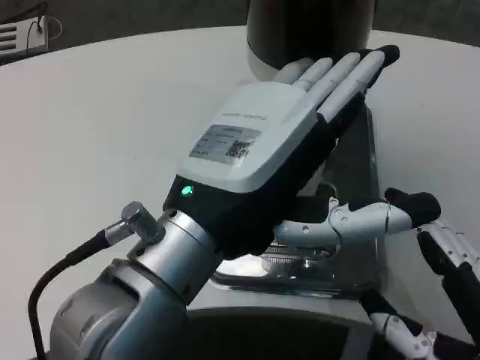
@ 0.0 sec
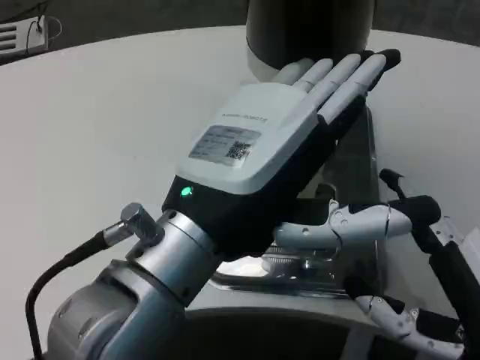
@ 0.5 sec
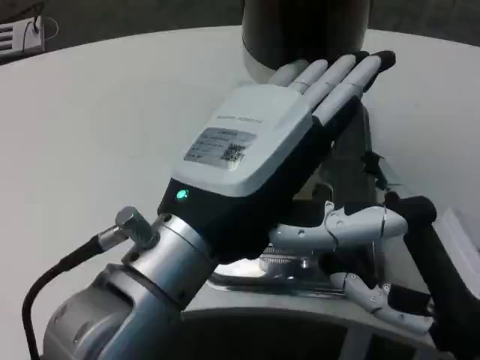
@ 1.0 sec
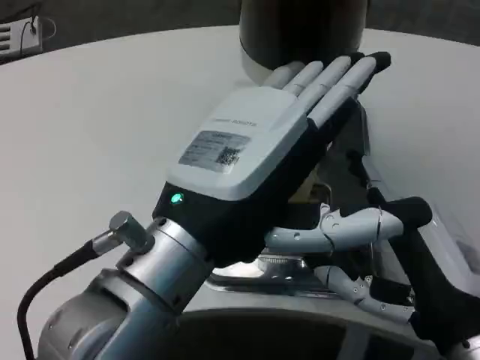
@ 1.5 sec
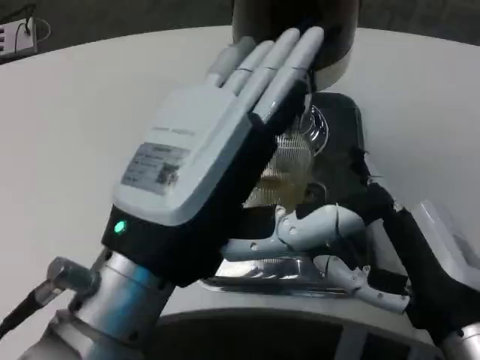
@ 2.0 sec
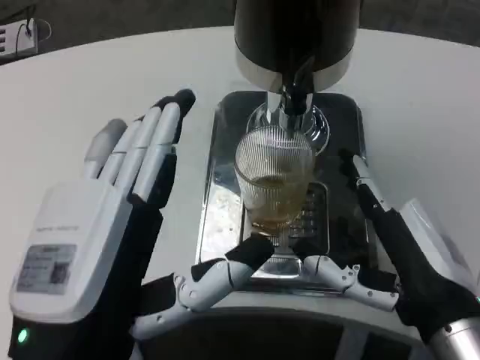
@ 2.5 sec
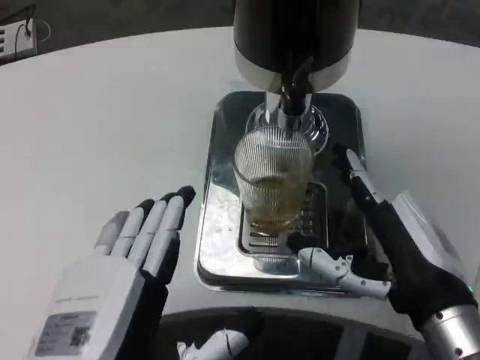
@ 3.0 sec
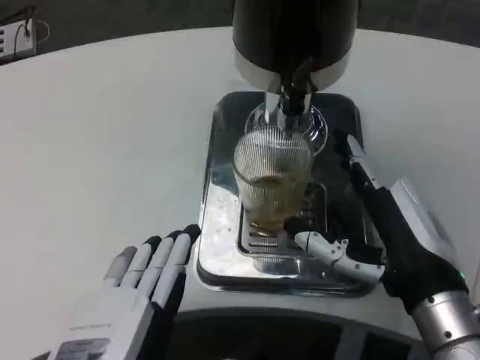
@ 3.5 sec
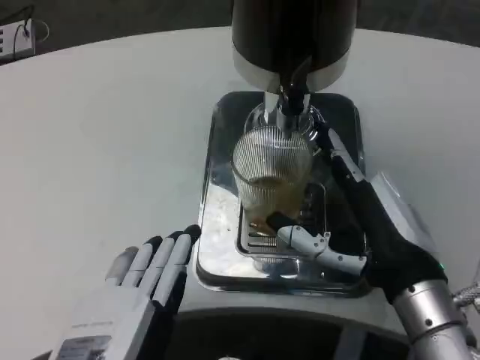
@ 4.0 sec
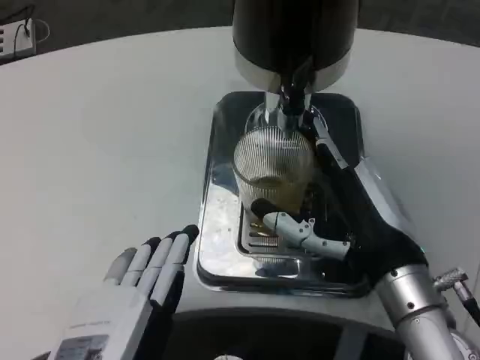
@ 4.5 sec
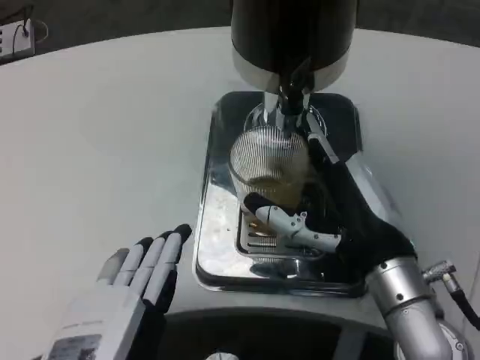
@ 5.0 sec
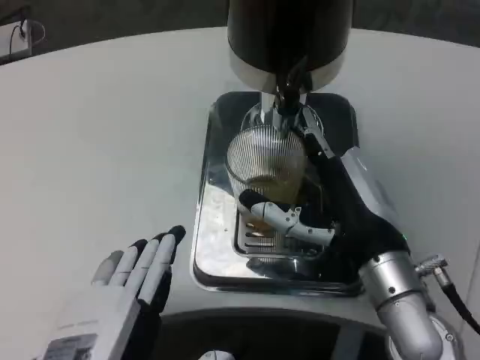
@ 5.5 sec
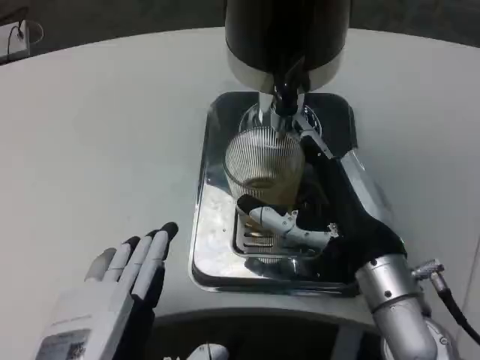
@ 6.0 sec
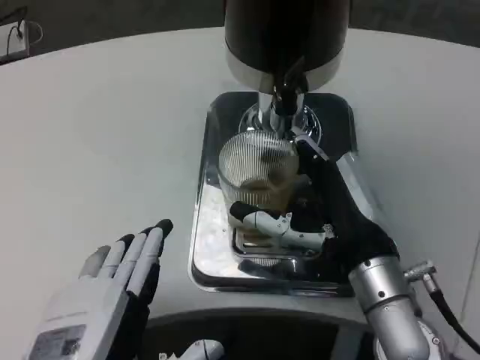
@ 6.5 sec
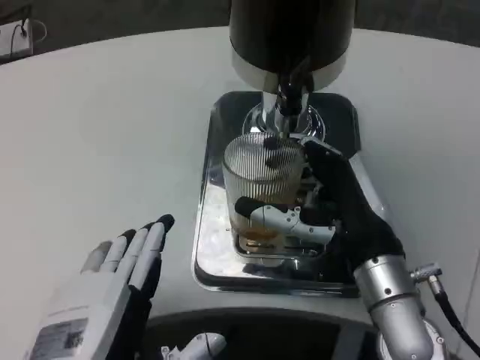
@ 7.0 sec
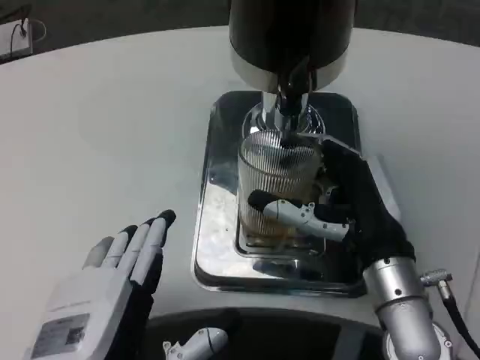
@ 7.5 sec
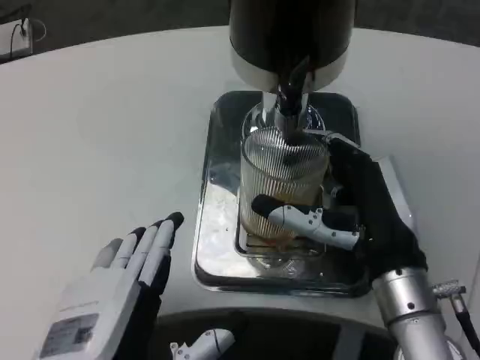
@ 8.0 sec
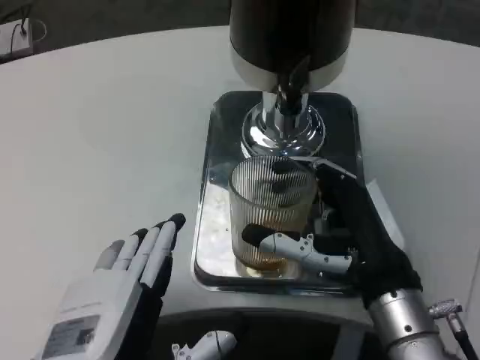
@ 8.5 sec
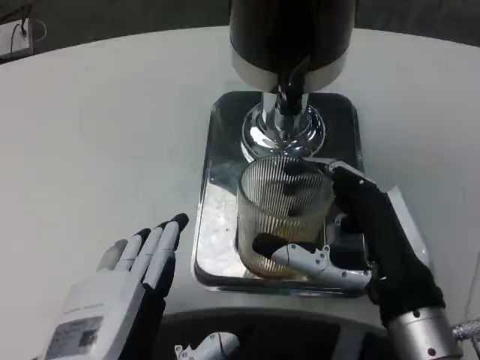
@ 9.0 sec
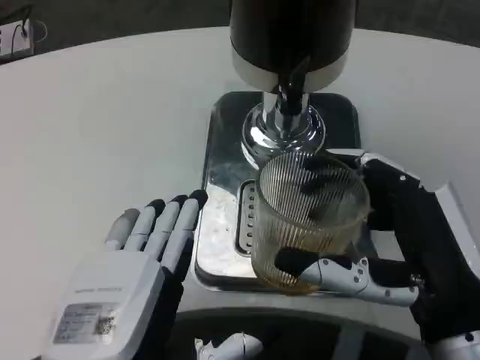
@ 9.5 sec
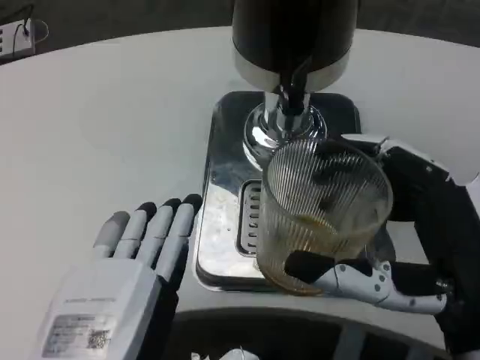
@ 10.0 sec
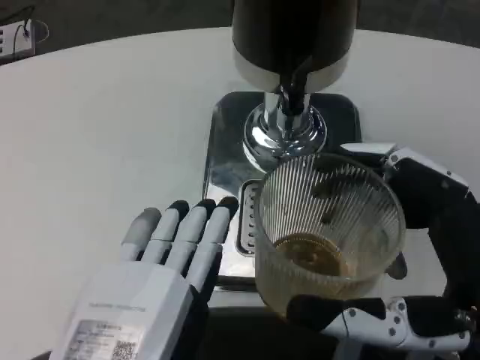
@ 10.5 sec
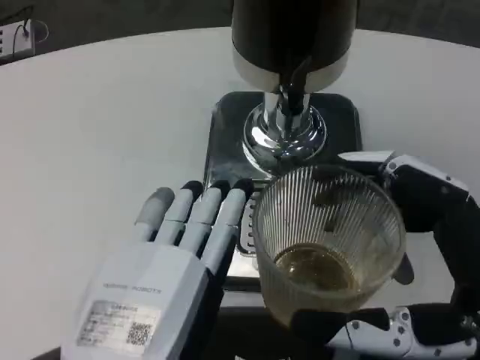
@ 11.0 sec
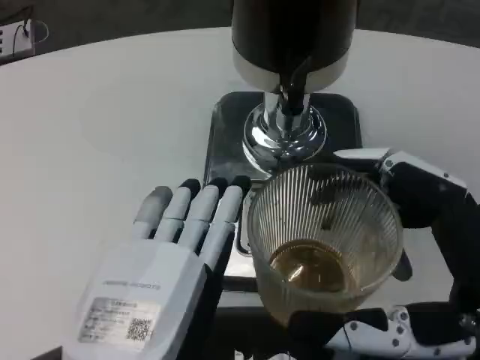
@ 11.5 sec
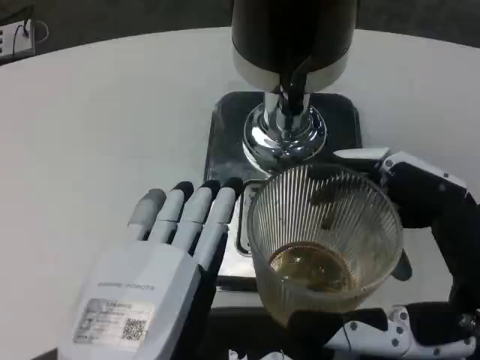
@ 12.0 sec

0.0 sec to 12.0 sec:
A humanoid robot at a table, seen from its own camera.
Task of the whole recording: Grasp the cup under the faucet to collect the drink, then remove the cup.
0.0 sec to 2.0 sec: The right hand heads forward, covering some 5 cm.
2.0 sec to 4.0 sec: The right hand shifts by about 5 cm. Meanwhile the left hand heads downward, covering some 10 cm.
8.0 sec to 10.0 sec: The right hand travels backward by some 10 cm.

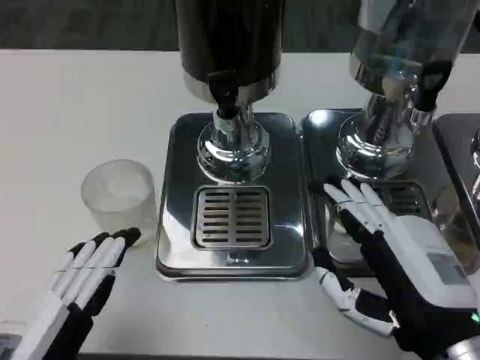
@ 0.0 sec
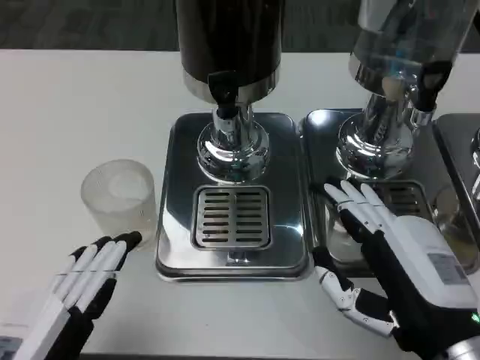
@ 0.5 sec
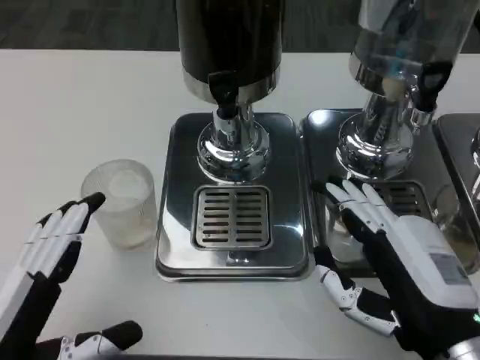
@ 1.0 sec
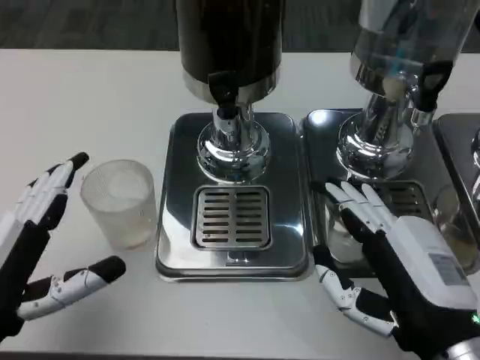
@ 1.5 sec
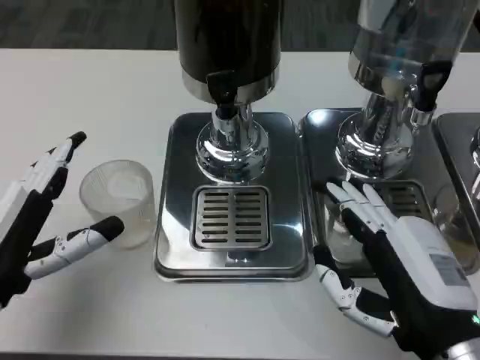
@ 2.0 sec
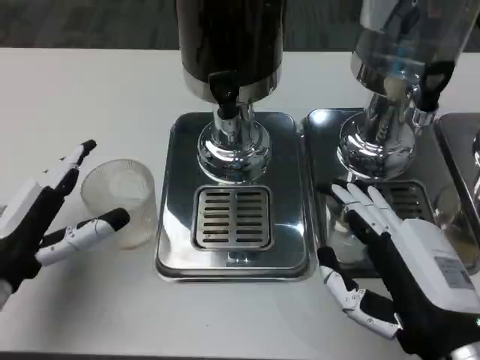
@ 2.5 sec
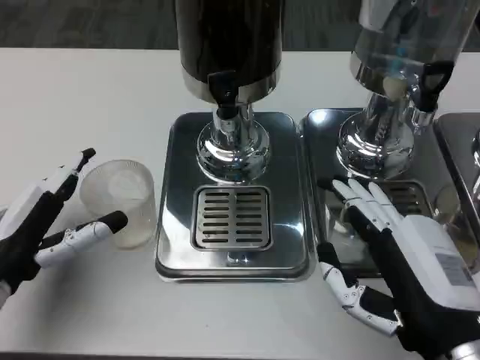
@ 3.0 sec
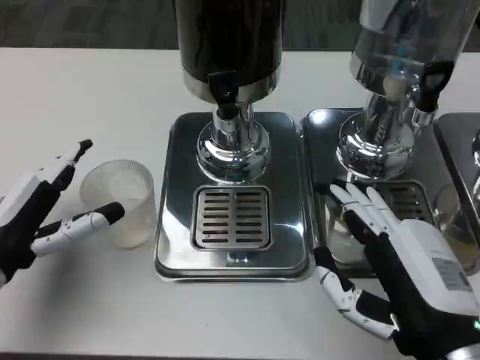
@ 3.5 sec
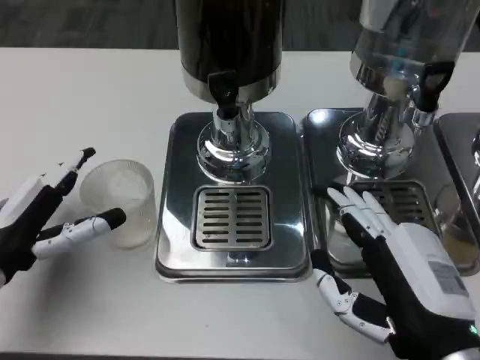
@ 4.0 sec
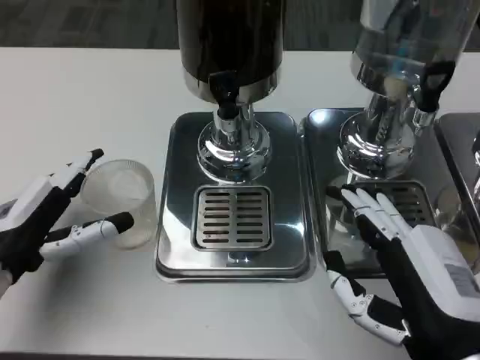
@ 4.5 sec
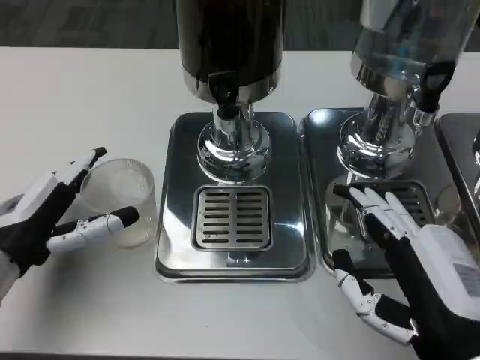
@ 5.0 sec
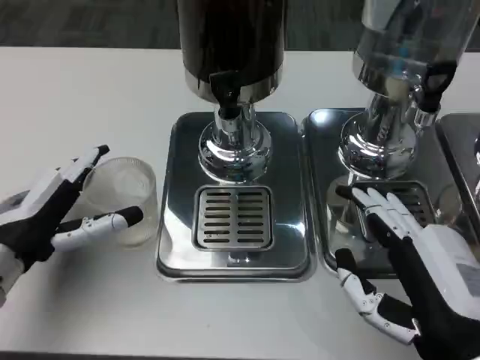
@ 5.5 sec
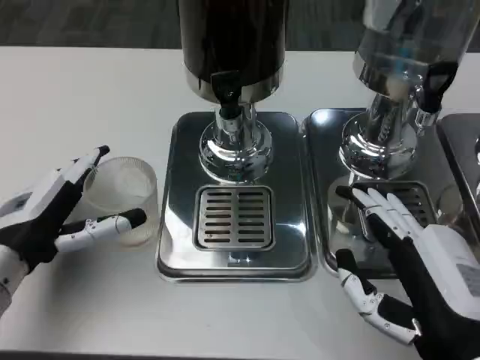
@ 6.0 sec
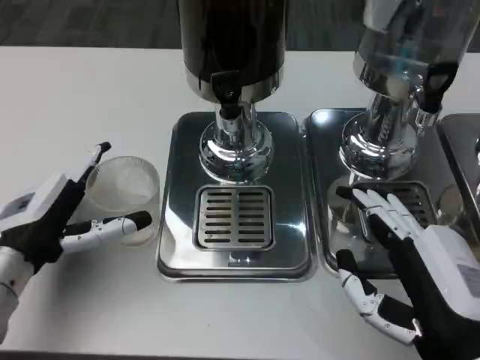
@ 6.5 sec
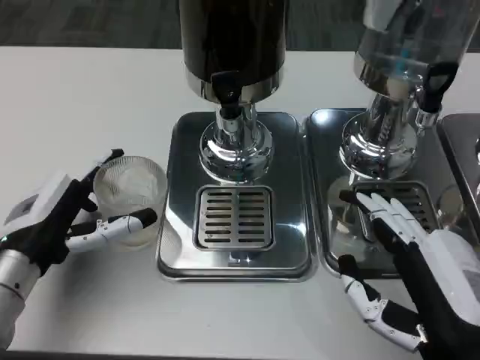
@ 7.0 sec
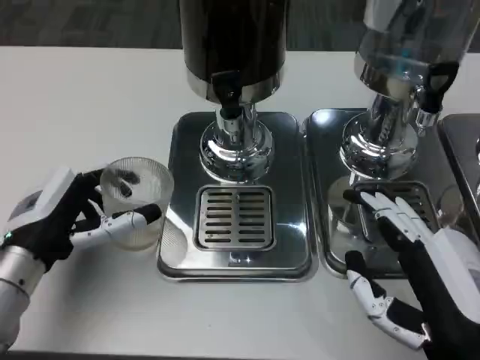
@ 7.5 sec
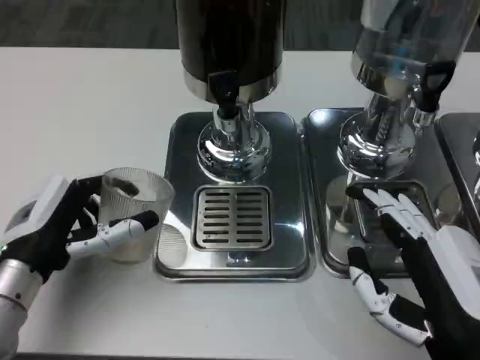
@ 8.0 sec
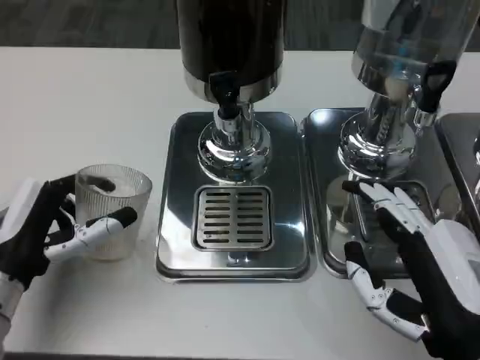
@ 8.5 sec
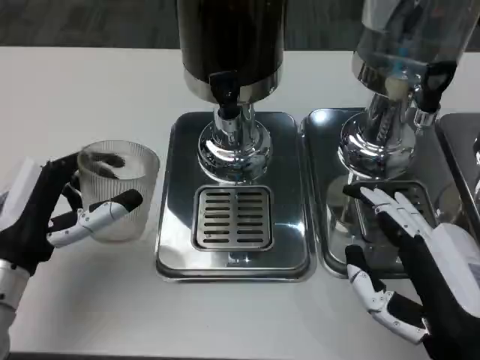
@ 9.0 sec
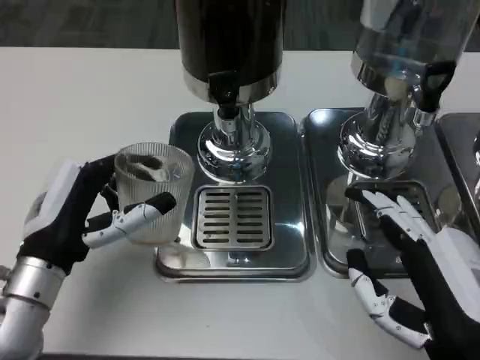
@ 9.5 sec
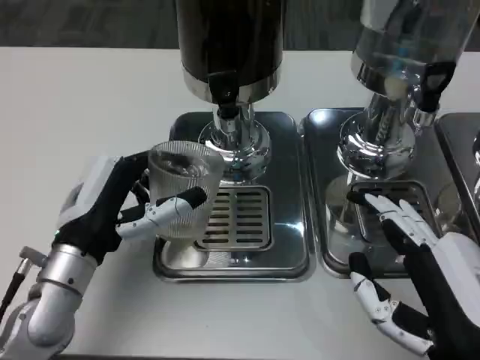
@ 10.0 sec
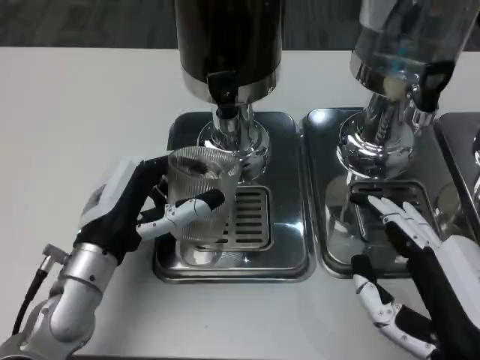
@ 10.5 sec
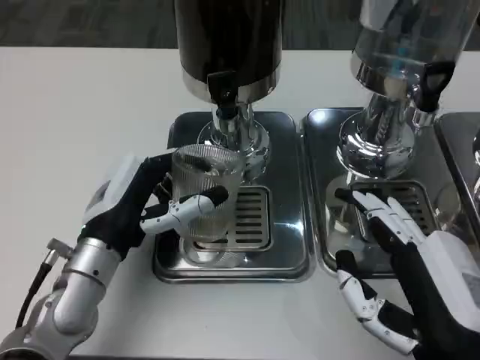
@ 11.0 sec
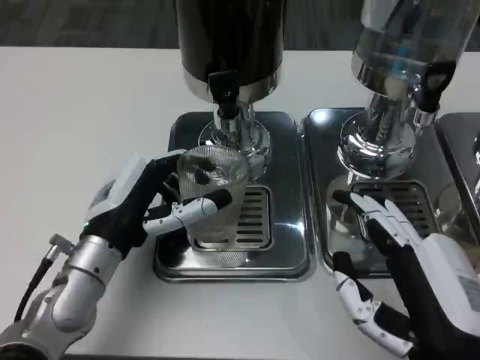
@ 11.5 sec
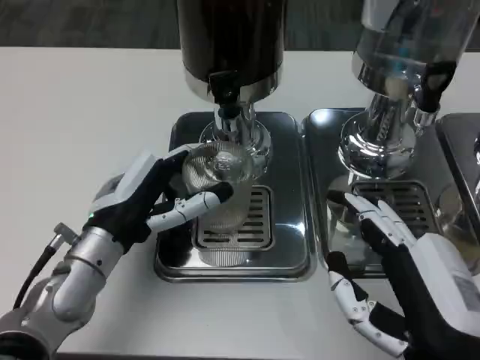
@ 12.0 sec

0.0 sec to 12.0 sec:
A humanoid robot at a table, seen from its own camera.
Task of the whole recording: Grasp the cup under the faucet to collect the drink, then remove the cup.
0.0 sec to 2.0 sec: The left hand heads forward, covering roughly 10 cm.
2.0 sec to 4.0 sec: There are only small adjustments of the hands.
8.0 sec to 10.0 sec: The left hand is displaced to the right by some 5 cm.

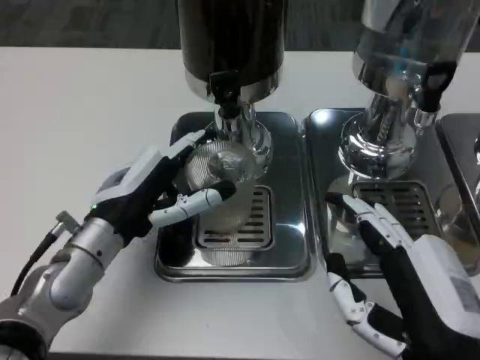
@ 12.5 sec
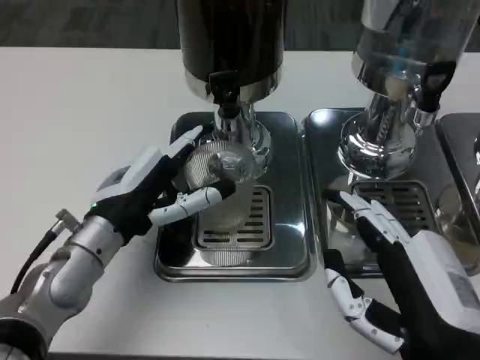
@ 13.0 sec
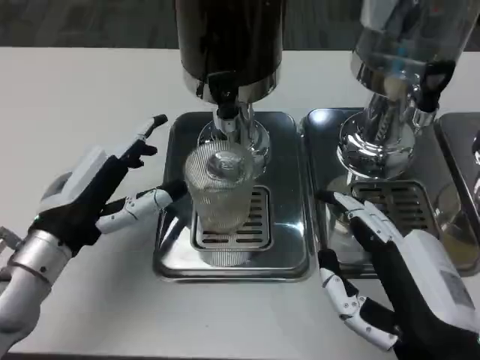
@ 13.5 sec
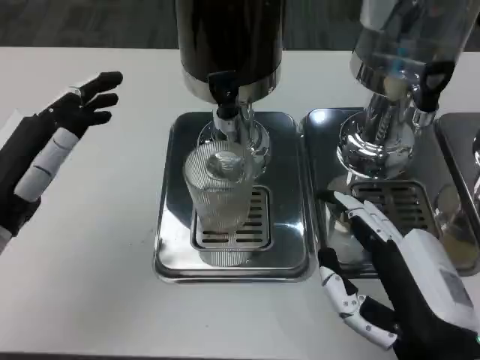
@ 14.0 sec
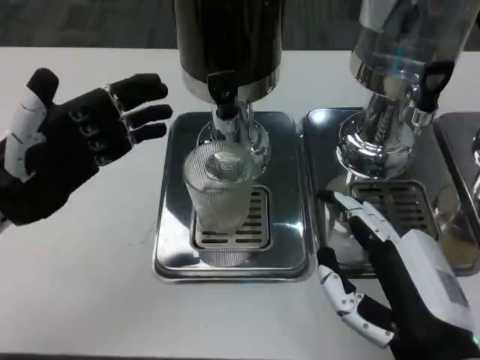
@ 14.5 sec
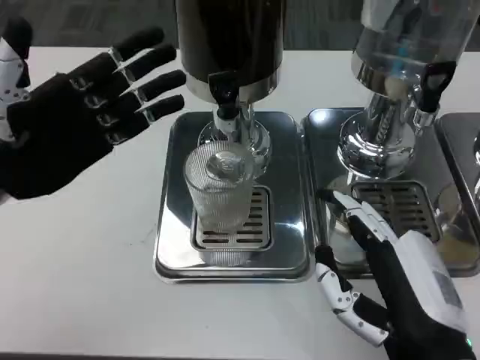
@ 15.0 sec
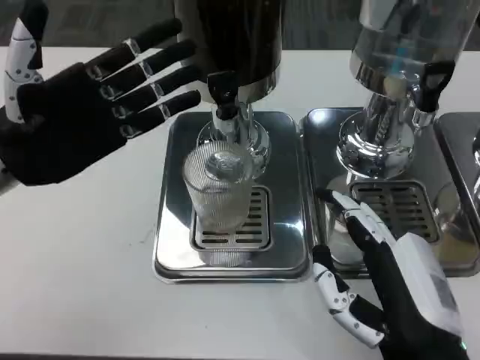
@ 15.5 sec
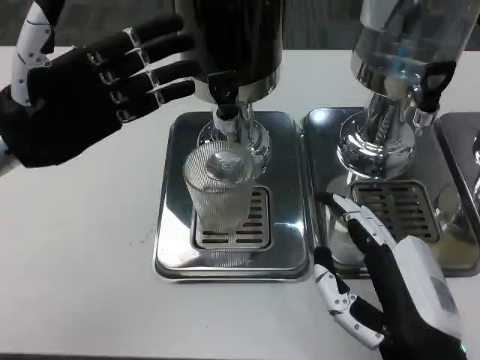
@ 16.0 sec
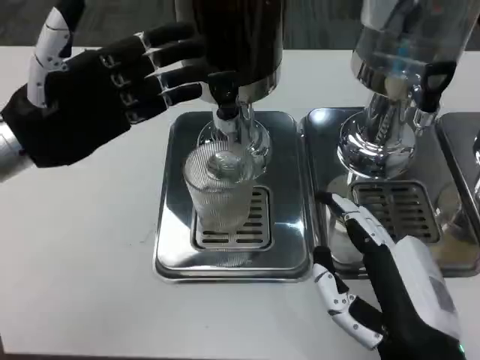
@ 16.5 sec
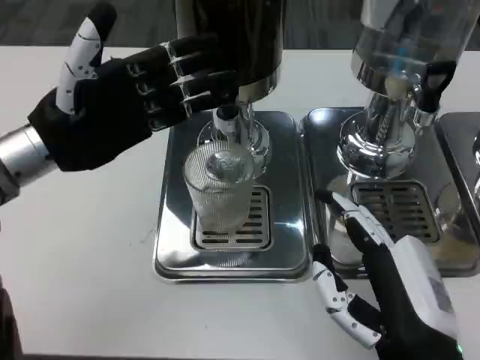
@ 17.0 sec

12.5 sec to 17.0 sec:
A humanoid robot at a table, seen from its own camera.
Task of the whole recording: Grasp the cup under the faucet to collect the drink, then remove the cup.
12.5 sec to 14.5 sec: The left hand travels to the left and upward by some 10 cm.
14.5 sec to 17.0 sec: The left hand is displaced forward by approximately 5 cm.
